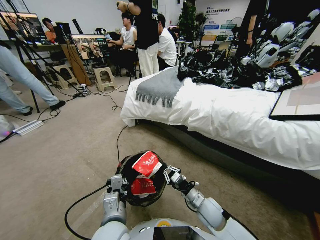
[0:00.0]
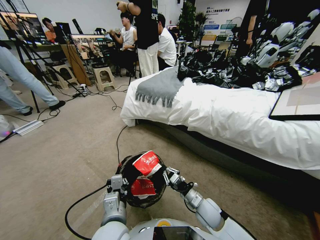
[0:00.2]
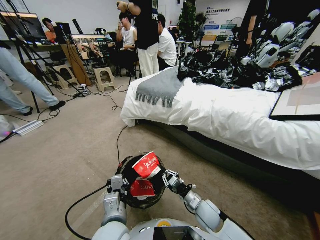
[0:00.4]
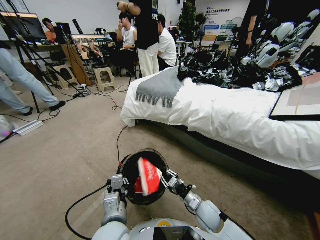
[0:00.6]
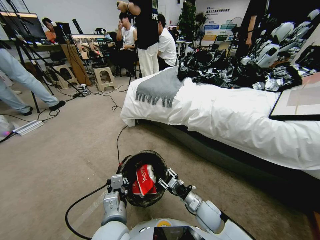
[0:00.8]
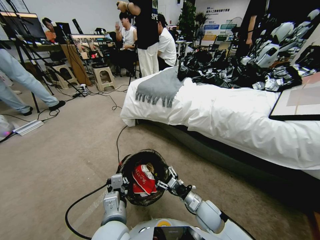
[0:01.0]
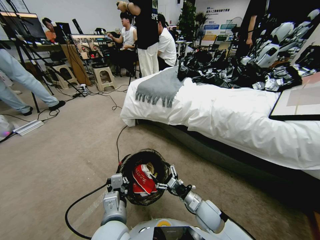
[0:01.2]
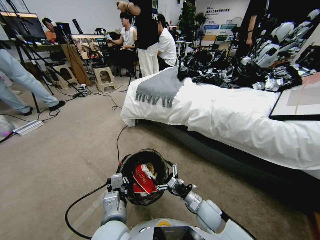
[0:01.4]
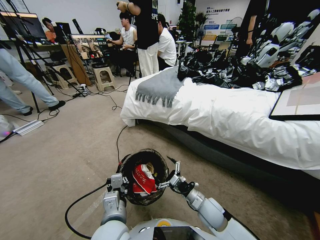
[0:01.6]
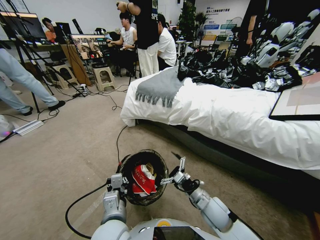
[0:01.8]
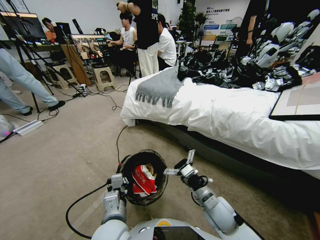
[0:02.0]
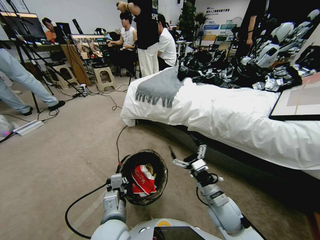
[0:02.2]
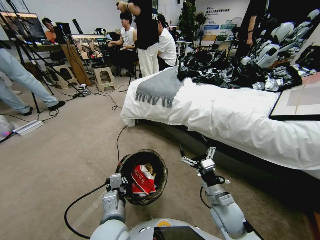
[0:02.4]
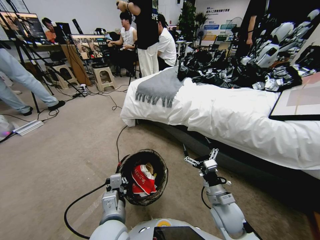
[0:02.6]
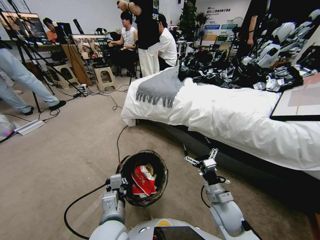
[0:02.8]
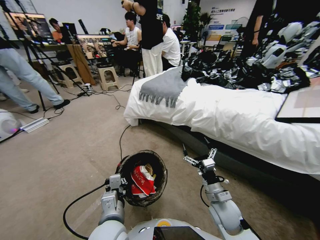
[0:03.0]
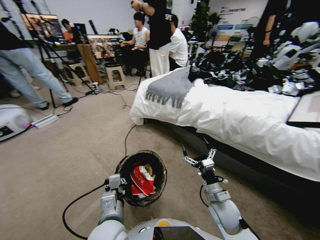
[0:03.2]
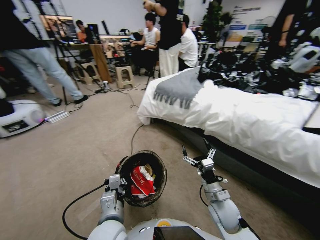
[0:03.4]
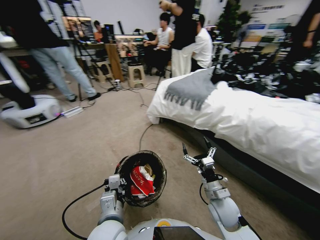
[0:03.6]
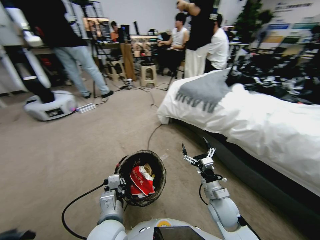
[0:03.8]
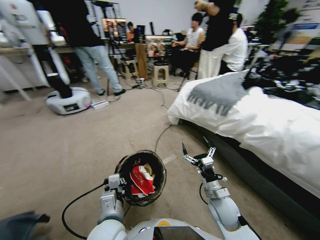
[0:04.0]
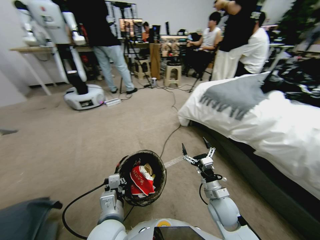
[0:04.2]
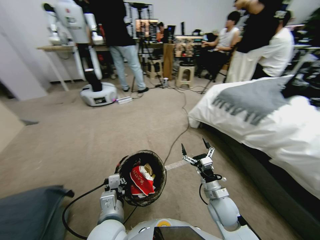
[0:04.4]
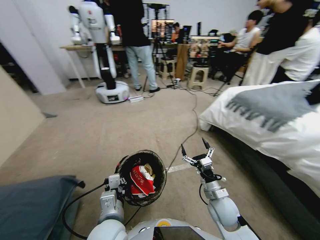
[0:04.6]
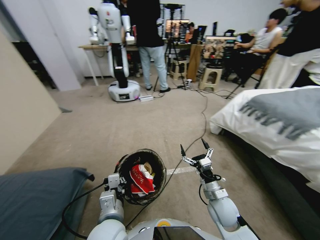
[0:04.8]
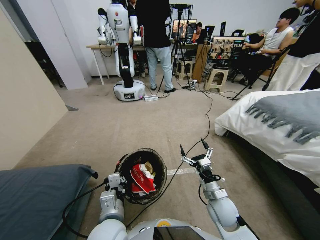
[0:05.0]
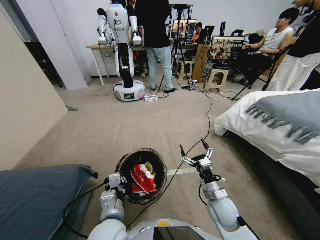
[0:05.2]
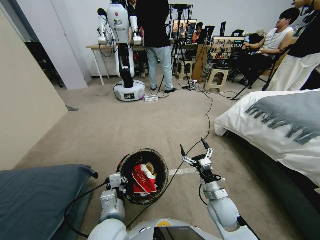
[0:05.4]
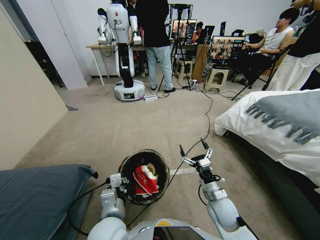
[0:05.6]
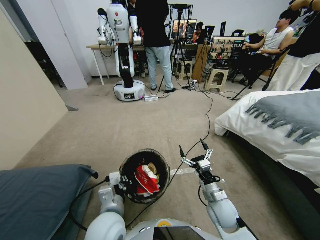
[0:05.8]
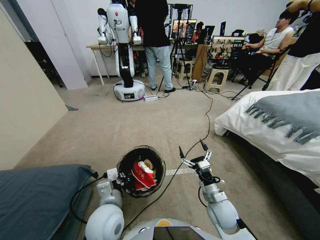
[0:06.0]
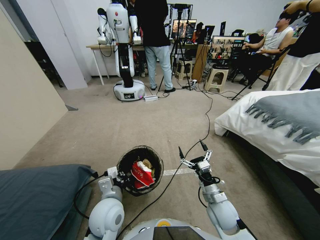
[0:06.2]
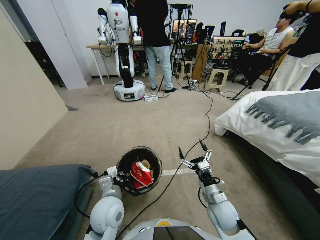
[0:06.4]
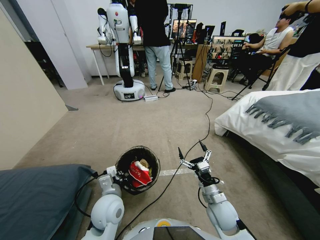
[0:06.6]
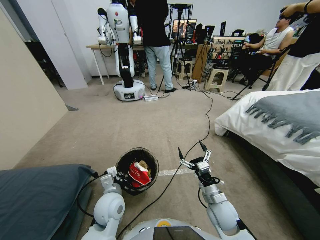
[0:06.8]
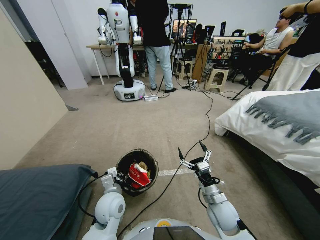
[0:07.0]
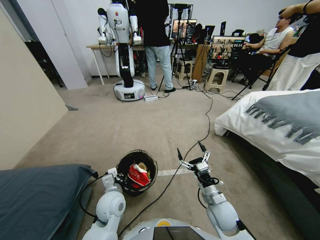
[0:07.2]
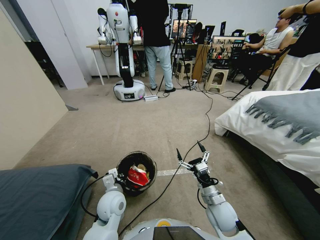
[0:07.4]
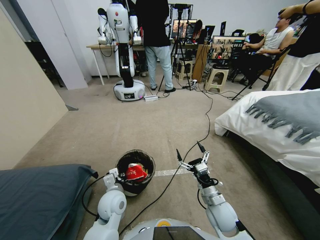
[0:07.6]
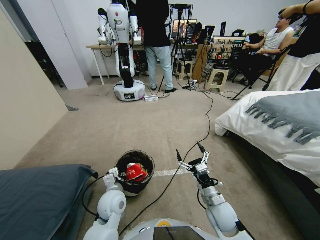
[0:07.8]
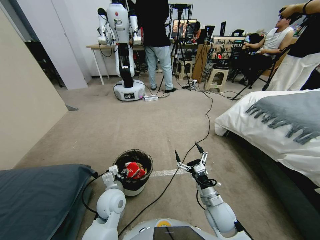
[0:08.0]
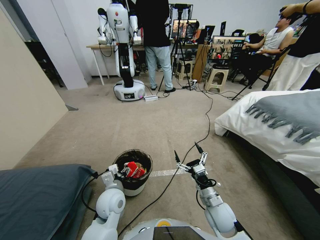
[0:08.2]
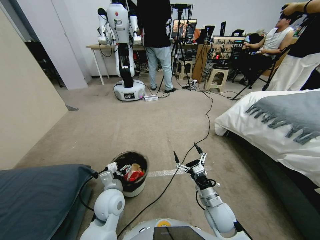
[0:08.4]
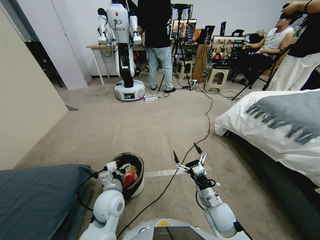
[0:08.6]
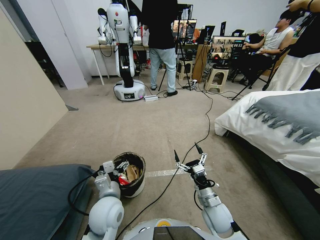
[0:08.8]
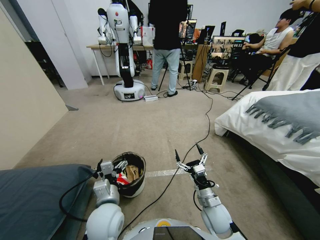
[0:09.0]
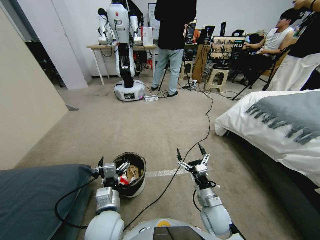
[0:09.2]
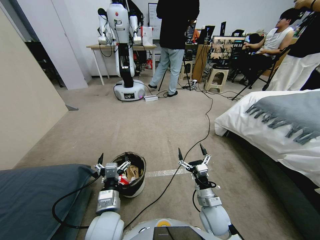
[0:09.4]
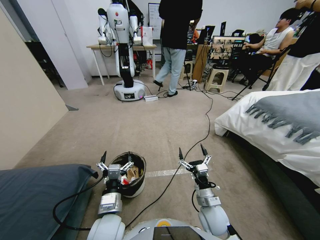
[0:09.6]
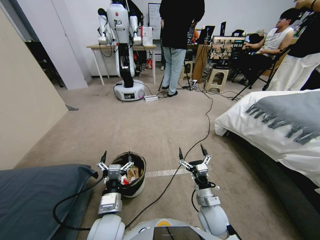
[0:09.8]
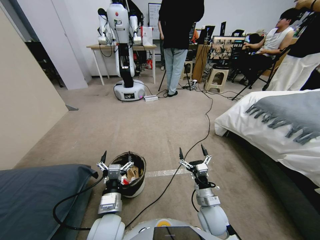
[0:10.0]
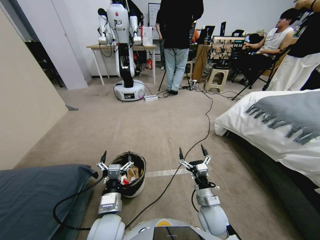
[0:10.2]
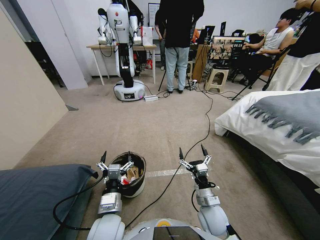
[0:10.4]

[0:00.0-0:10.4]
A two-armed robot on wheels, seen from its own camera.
Task of the whole recording: Pick up the trash bin, then pick up the garbage from the floor and place it into the trash bin.
0:00.0 to 0:01.4: The right gripper opens up.
0:01.4 to 0:03.0: The right gripper changes place by some 5 cm.
0:04.4 to 0:06.0: The left gripper travels forward by some 5 cm.
0:06.0 to 0:07.4: The left gripper goes approximately 5 cm downward.
0:07.4 to 0:09.0: The left gripper moves backward and upward, some 10 cm, and opens.
0:09.0 to 0:10.4: The grippers stay close to where they were, moving slightly.

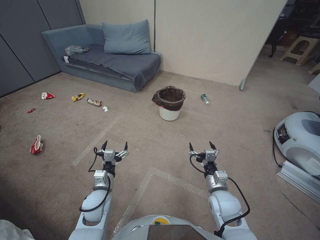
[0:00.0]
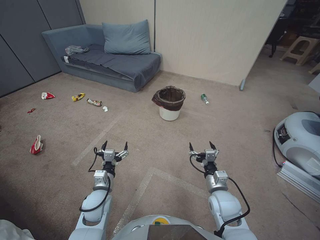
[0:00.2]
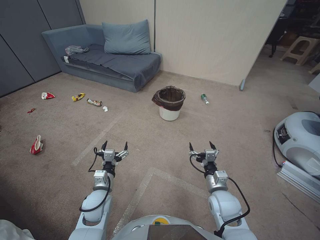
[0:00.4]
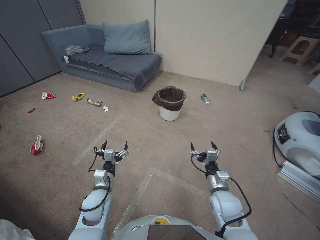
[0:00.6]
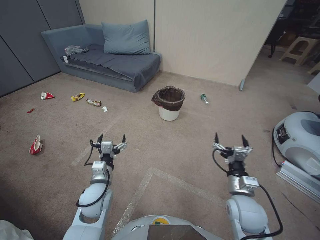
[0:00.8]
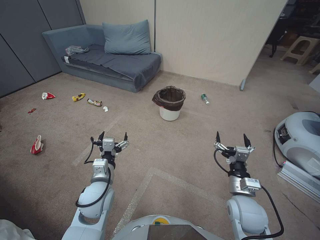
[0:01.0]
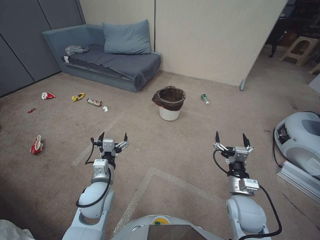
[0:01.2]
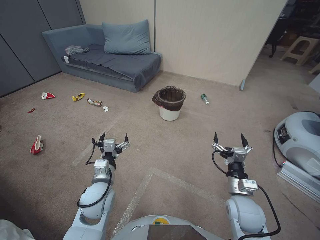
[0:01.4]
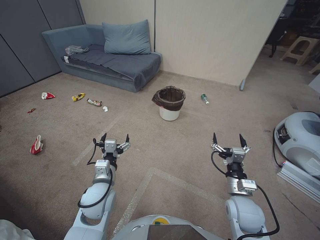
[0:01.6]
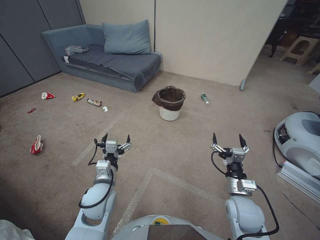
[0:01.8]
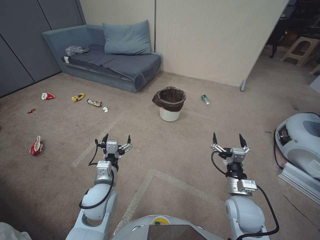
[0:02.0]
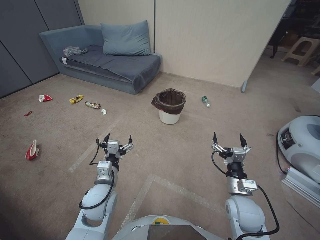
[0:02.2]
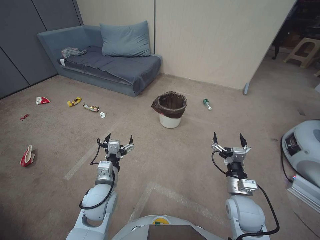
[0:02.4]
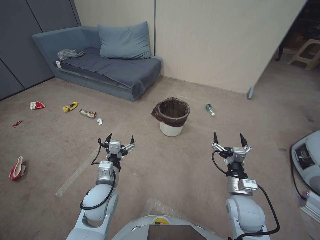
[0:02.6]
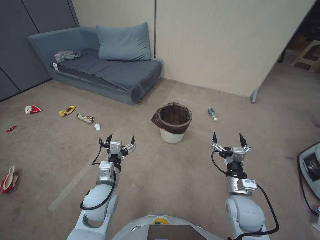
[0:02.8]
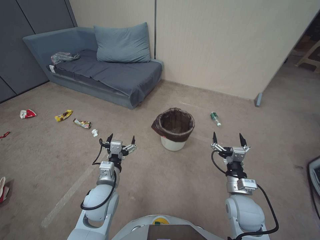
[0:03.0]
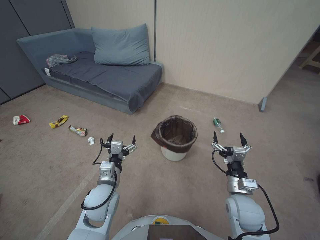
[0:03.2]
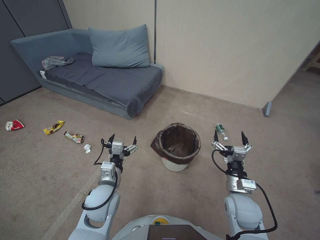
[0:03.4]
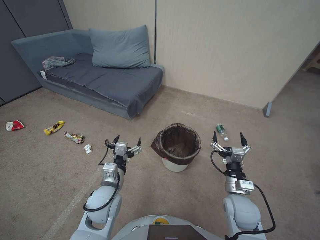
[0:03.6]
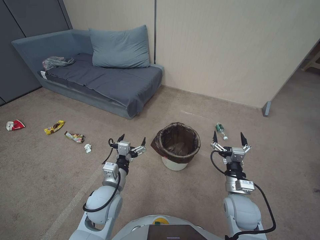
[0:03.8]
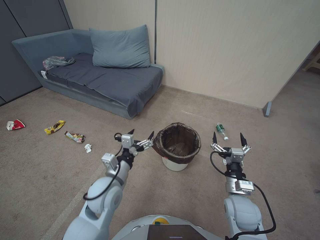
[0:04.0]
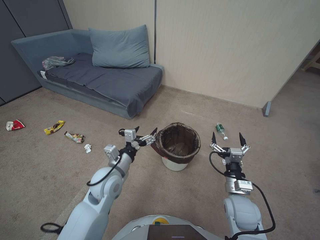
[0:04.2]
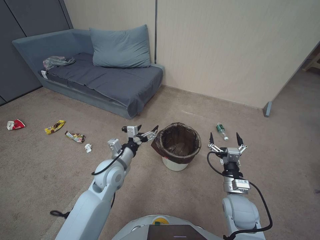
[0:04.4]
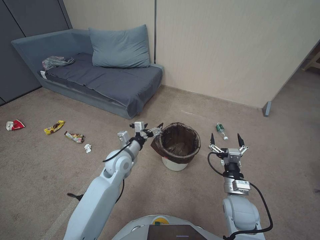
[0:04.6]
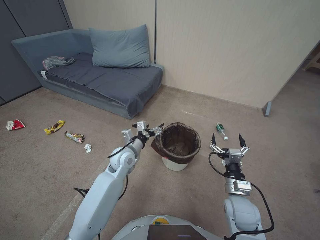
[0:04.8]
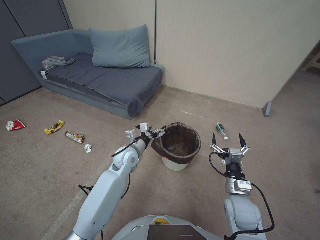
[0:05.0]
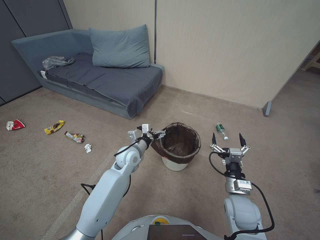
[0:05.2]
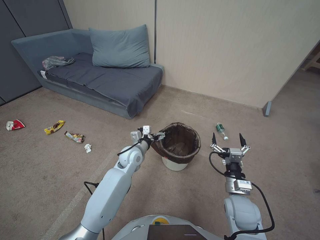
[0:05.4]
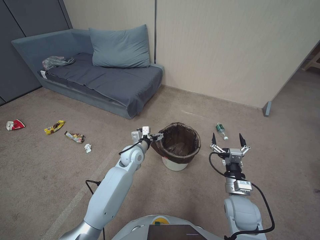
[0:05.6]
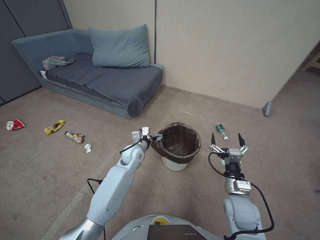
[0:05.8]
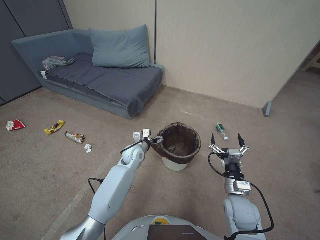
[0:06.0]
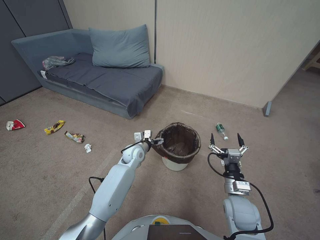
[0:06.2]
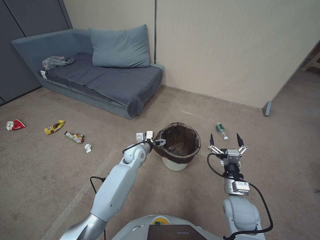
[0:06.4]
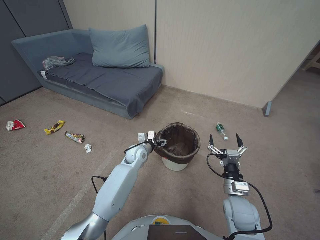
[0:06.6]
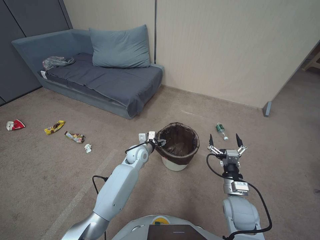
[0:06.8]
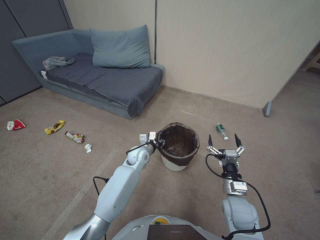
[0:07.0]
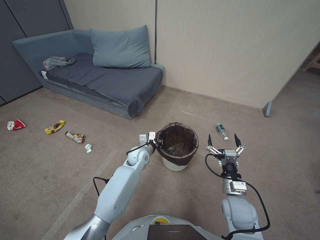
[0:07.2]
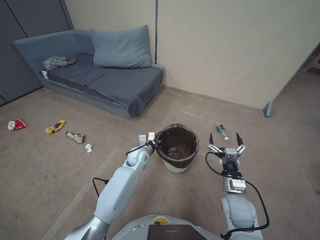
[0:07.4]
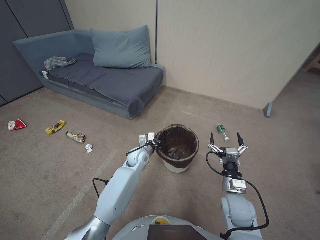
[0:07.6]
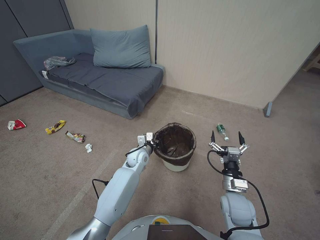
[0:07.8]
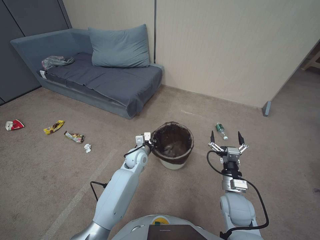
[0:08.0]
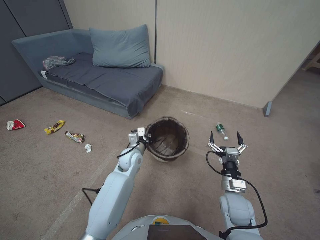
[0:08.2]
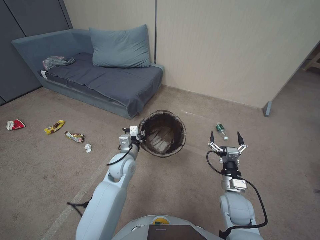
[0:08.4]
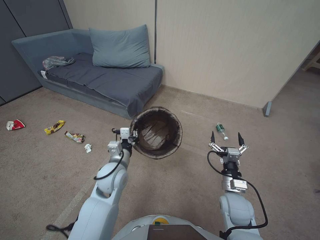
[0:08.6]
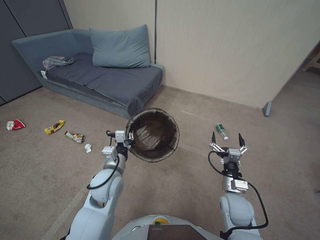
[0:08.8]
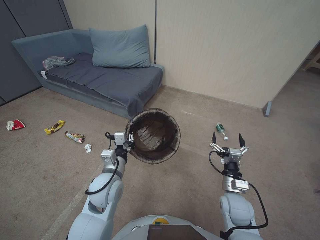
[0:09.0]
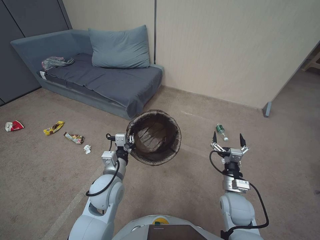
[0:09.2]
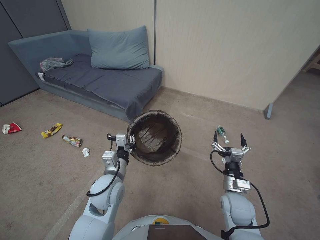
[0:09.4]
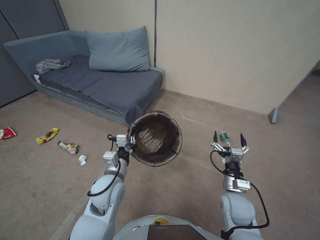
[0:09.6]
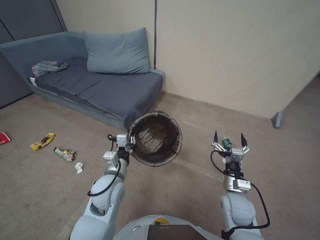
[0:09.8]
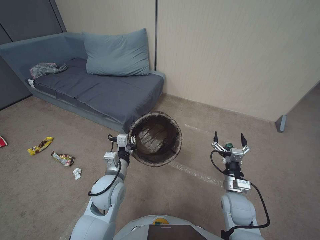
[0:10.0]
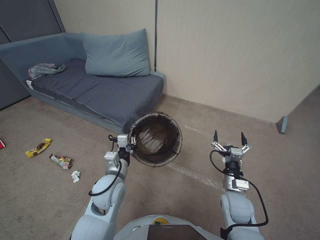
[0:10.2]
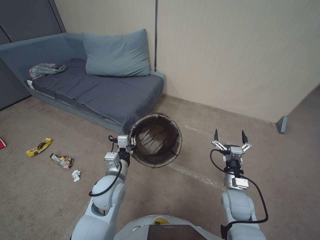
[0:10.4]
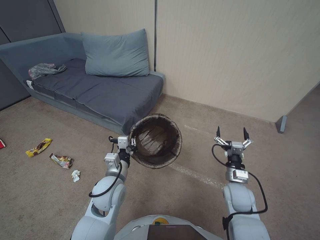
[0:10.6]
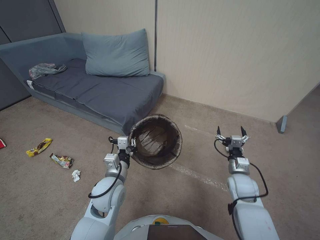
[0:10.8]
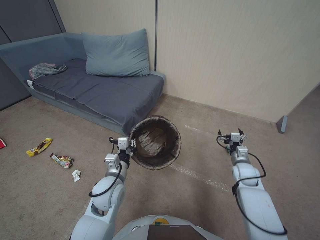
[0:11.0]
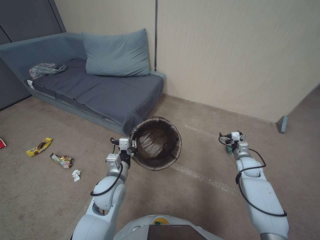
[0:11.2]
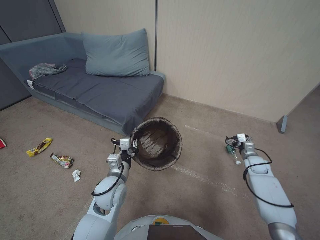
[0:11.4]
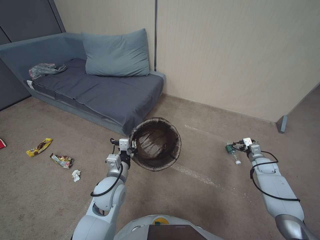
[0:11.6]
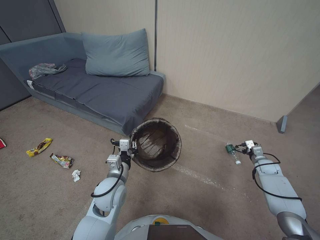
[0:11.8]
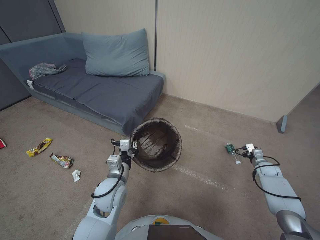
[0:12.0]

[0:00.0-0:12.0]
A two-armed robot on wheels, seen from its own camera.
Task of the whole recording: Pick up the trash bin, then pick up the garbage from the floor and place it into the trash bin.
0:03.0 to 0:04.4: The left gripper heads forward, covering roughly 5 cm.
0:04.4 to 0:06.0: The left gripper heads forward, to the right and downward, covering some 15 cm.
0:06.0 to 0:07.6: The left gripper changes place by roughly 5 cm, and closes up.
0:07.6 to 0:09.0: The left gripper heads backward, upward and to the left, covering some 20 cm.
0:09.0 to 0:10.4: The grippers stay close to where they were, moving slightly.
0:10.4 to 0:12.0: The right gripper moves to the right and forward, about 30 cm.
